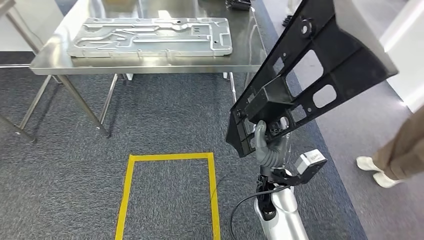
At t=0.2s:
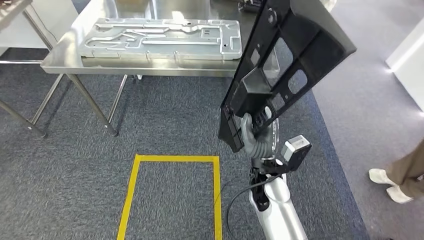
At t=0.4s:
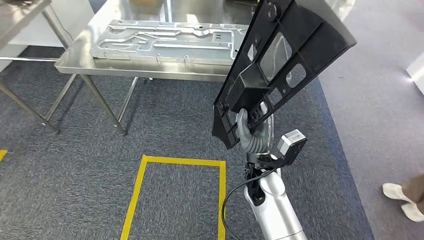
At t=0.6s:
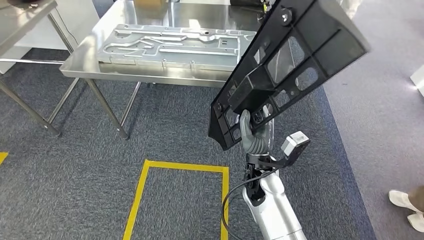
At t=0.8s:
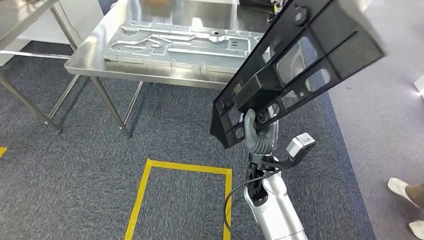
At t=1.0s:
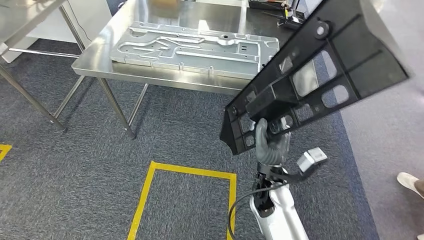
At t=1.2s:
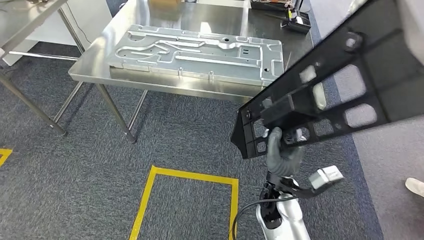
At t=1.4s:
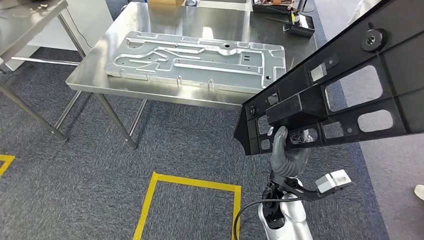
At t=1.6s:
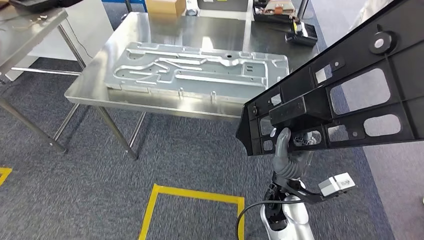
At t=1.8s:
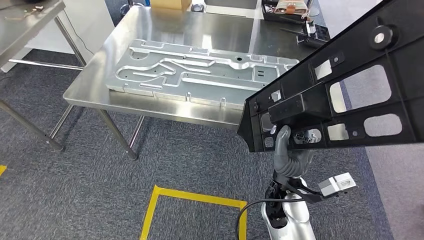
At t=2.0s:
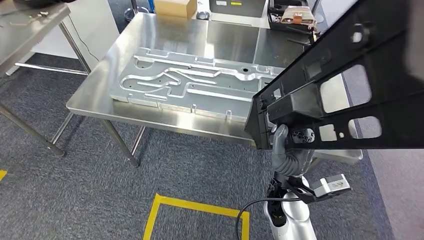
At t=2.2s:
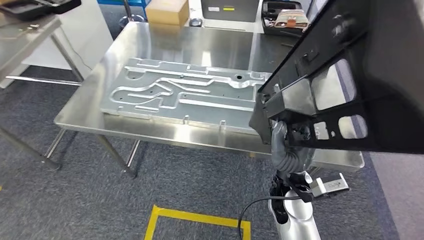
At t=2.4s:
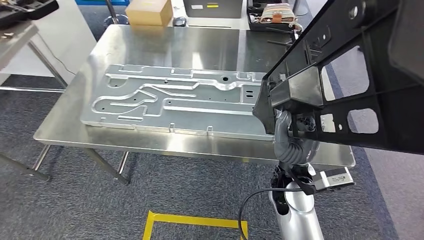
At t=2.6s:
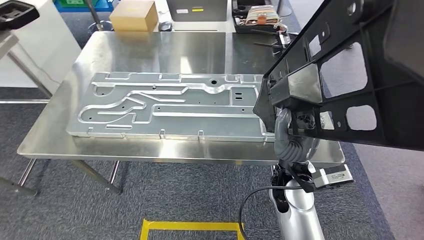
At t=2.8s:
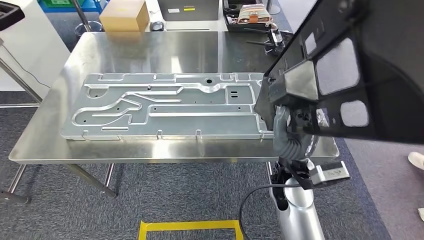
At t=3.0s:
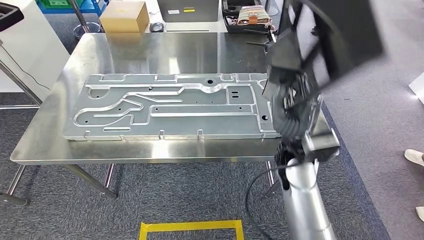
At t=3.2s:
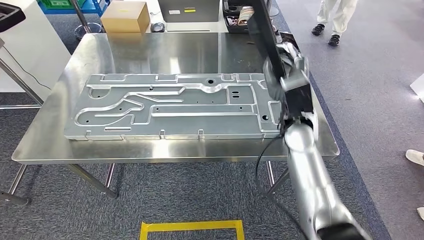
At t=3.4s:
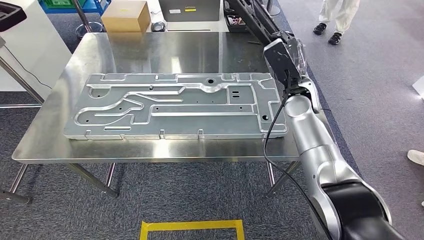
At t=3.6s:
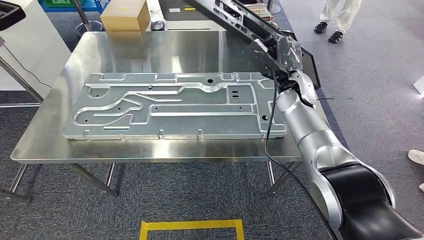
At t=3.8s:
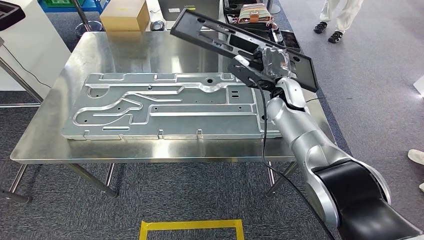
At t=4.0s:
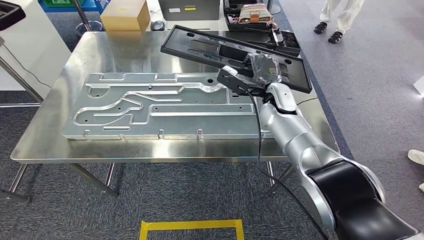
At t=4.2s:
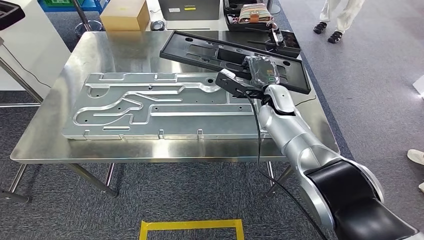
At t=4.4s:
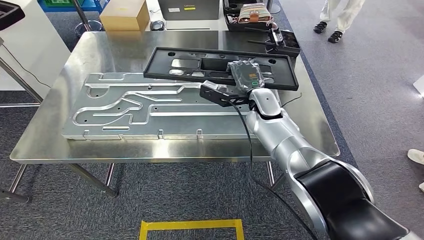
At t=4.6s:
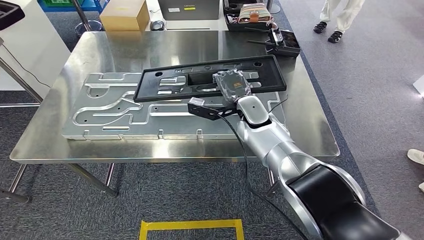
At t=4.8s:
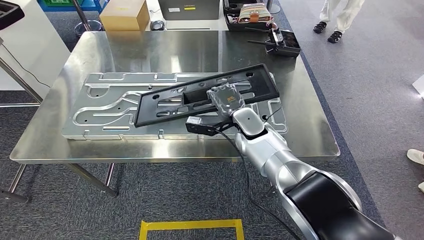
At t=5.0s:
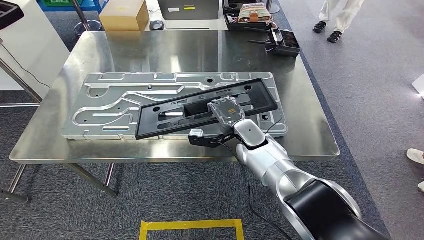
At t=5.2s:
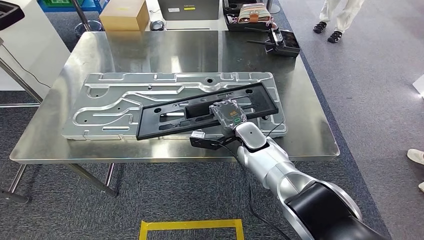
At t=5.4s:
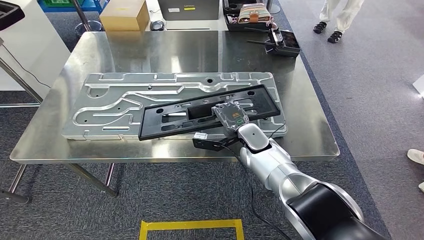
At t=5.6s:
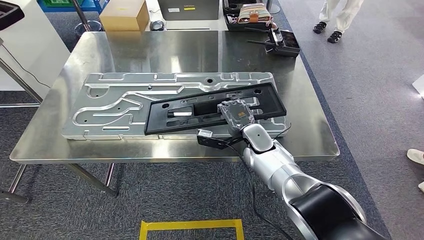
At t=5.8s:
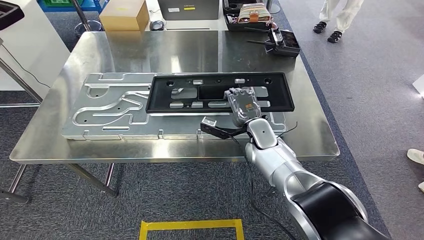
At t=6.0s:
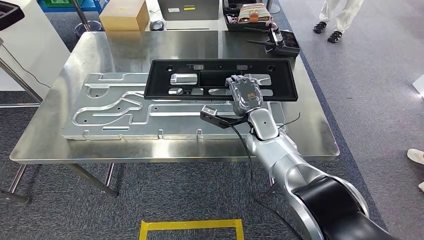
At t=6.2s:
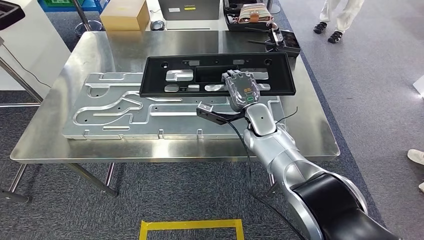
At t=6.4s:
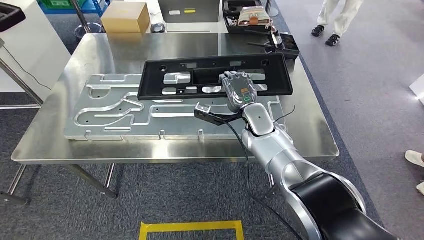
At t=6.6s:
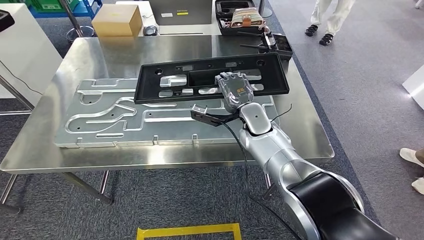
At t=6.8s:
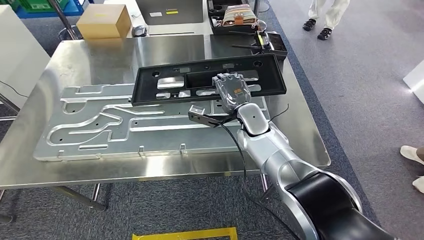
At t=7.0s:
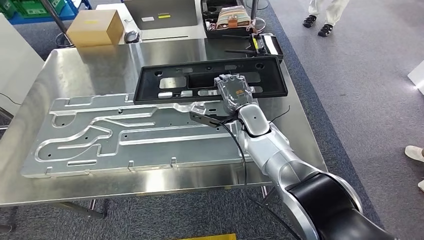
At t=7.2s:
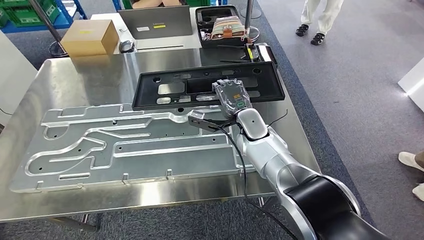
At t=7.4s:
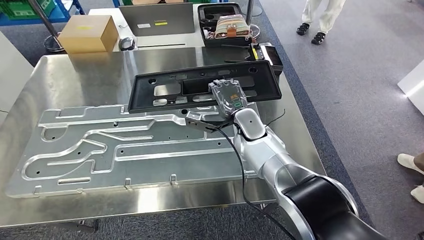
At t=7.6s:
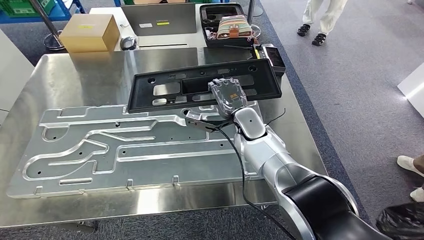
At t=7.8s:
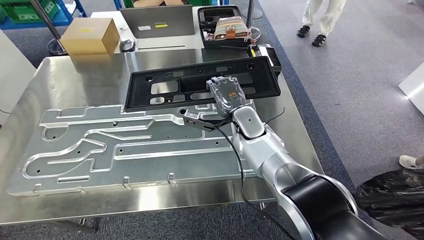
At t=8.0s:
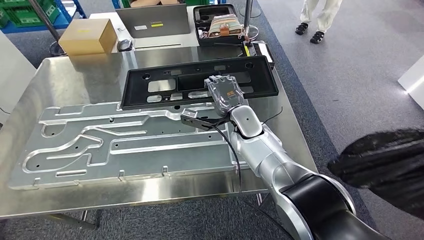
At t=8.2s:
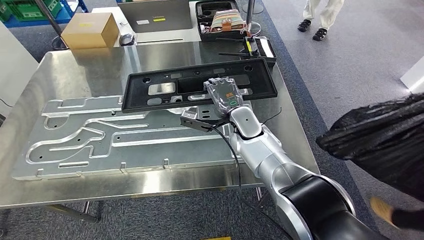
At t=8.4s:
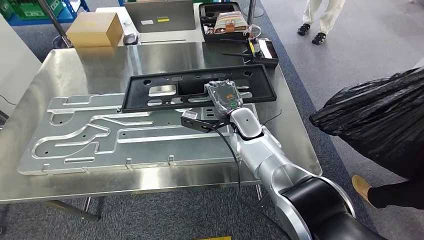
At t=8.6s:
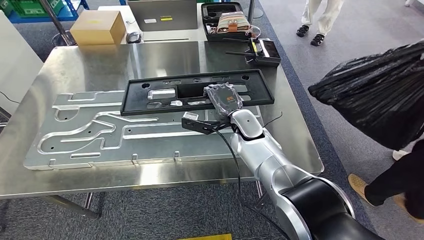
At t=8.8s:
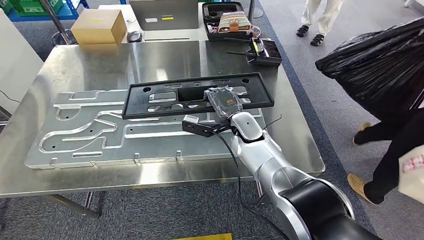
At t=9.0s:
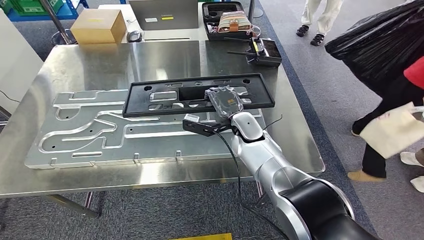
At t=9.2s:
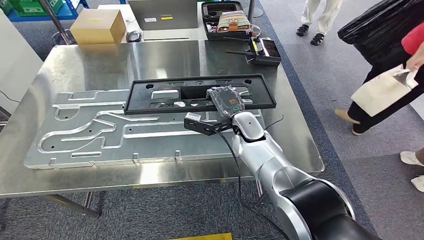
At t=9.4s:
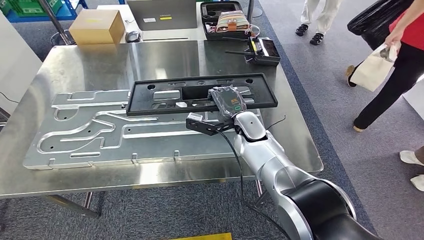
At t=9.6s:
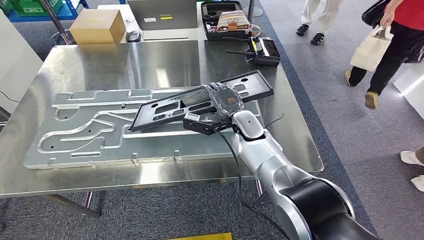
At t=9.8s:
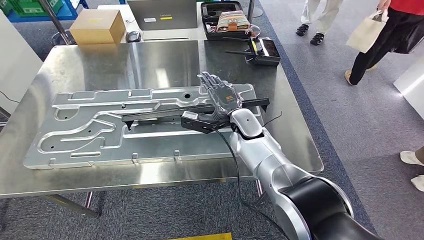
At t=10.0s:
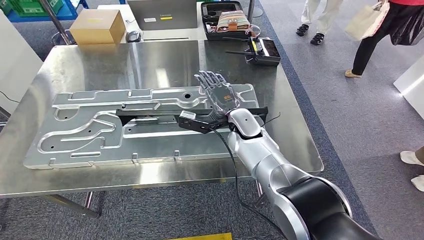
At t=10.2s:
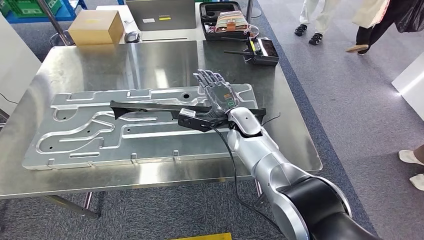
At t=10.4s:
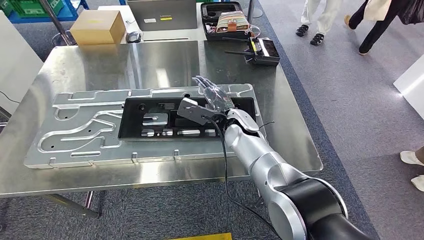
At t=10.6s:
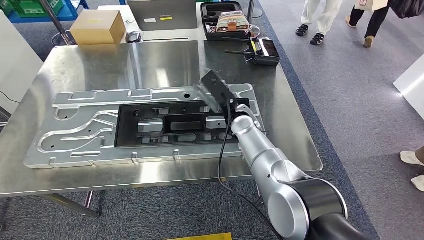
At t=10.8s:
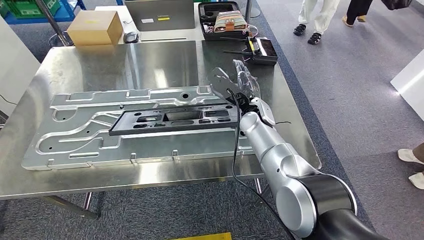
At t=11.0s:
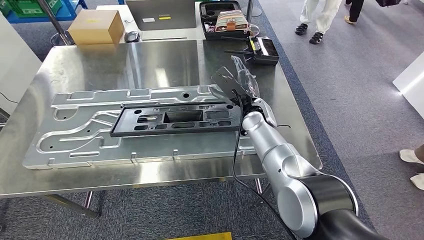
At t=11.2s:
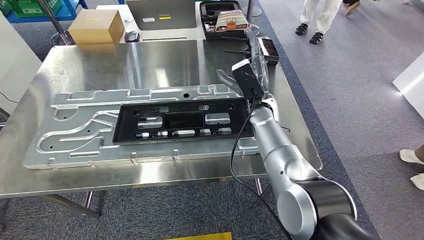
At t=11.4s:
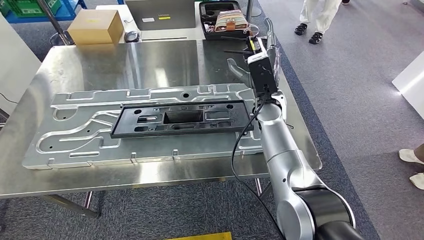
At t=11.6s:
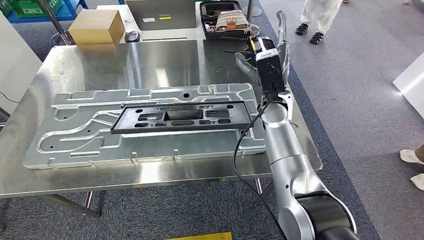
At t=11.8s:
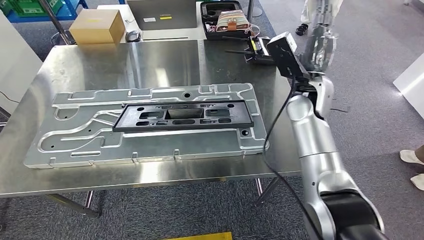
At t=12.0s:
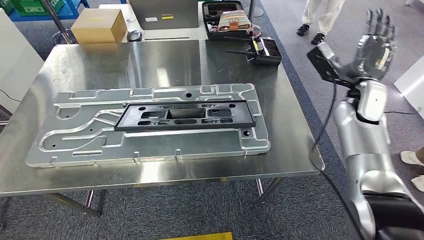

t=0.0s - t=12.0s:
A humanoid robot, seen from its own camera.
Step, t=0.0s - t=3.2s: Move the large material to the front of the workbench.
t=4.4s - t=6.0s: The right hand shifts approximately 5 cm downward.

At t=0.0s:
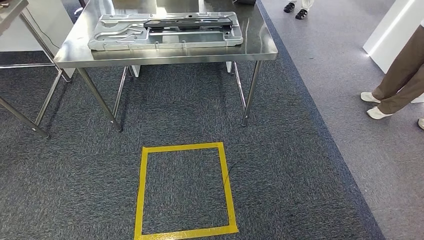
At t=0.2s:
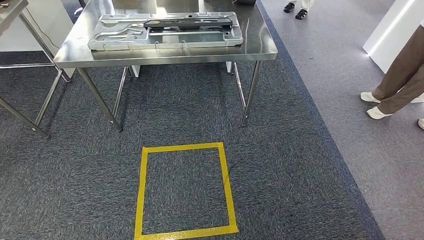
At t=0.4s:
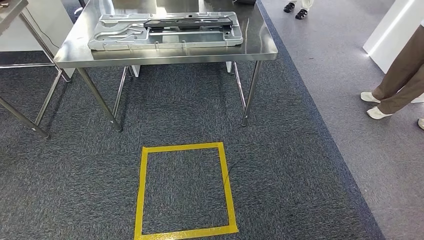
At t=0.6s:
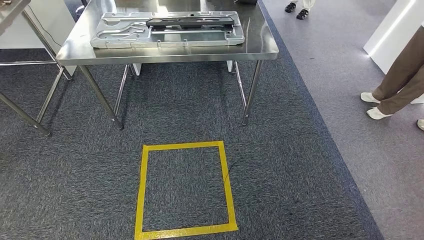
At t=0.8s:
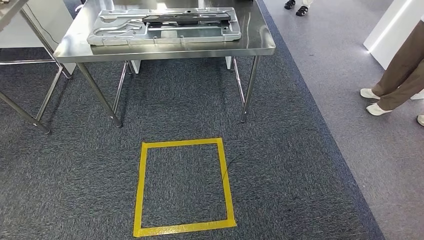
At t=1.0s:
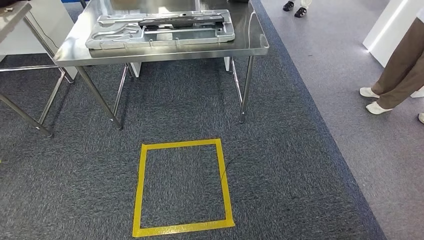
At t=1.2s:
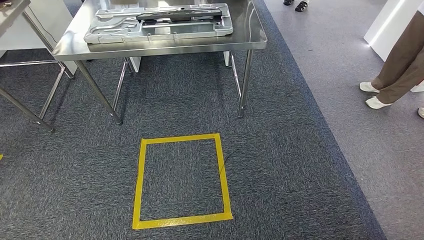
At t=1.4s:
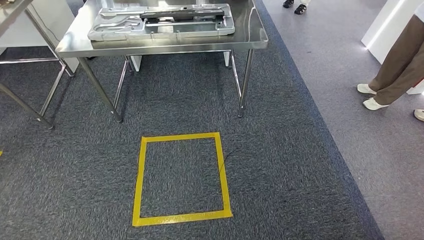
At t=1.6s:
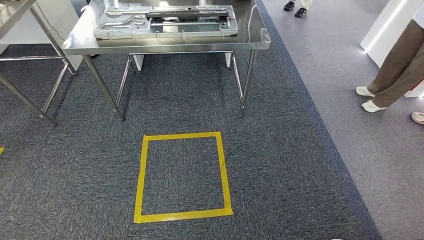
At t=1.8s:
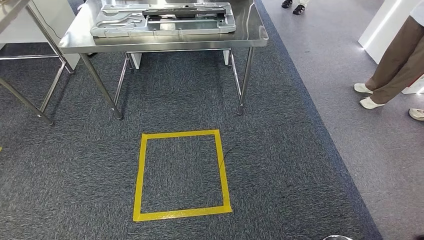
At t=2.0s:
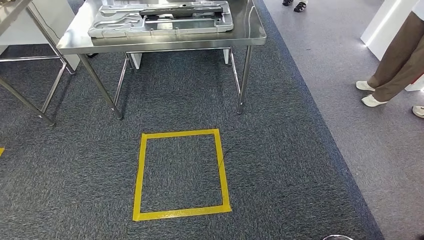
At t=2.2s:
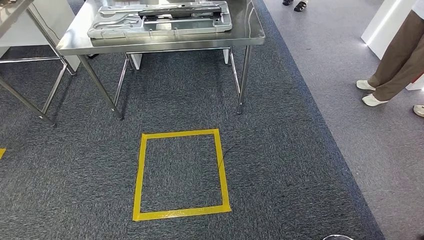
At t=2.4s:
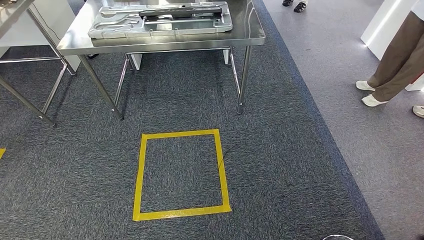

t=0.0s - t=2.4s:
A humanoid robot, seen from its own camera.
Step, t=0.0s - t=2.4s: Move to the initial position of the shelf.
t=0.0s - t=2.4s: The two hands keep their place.
